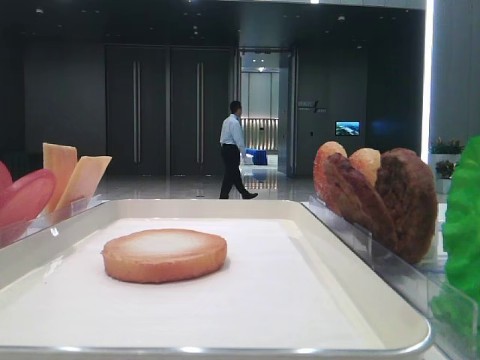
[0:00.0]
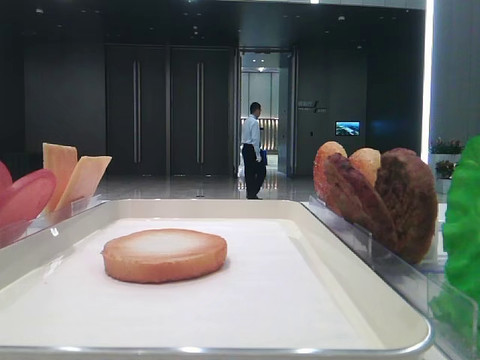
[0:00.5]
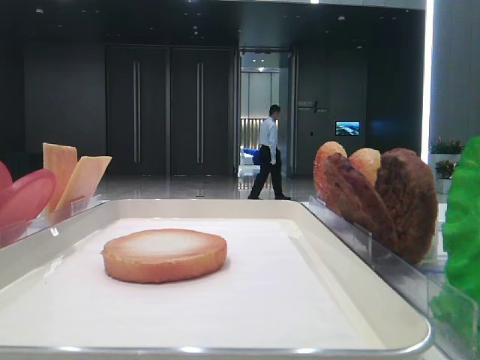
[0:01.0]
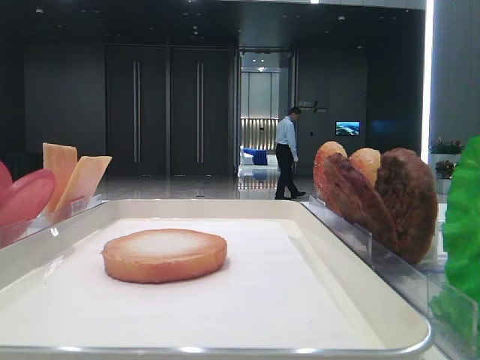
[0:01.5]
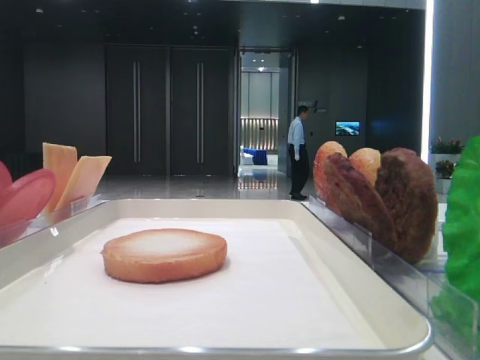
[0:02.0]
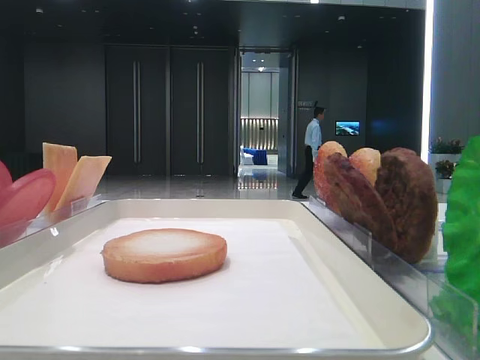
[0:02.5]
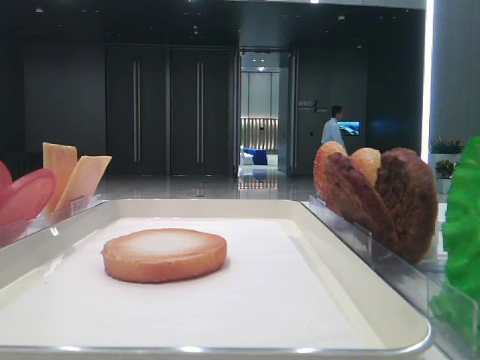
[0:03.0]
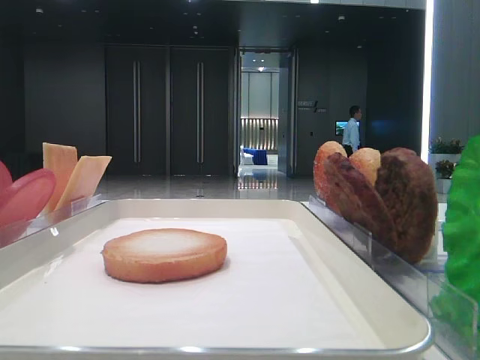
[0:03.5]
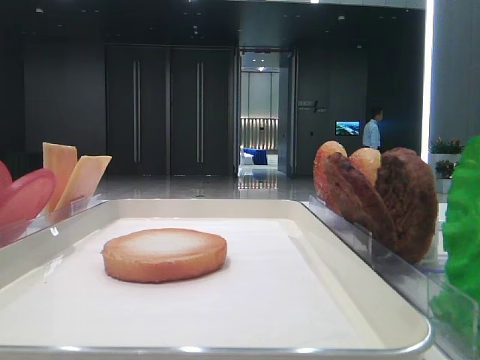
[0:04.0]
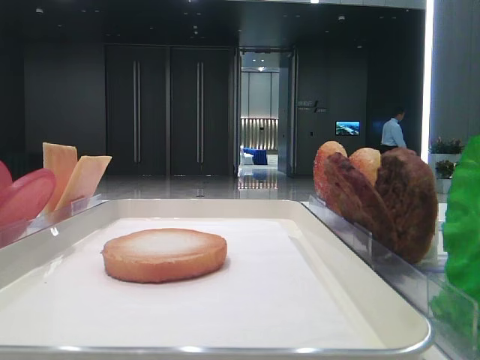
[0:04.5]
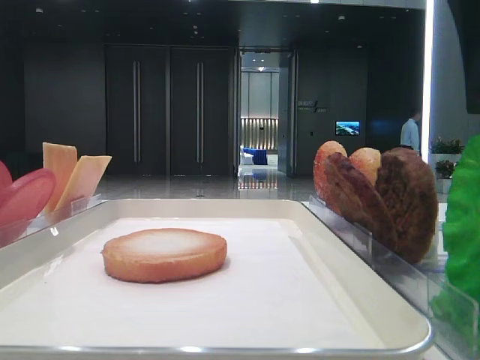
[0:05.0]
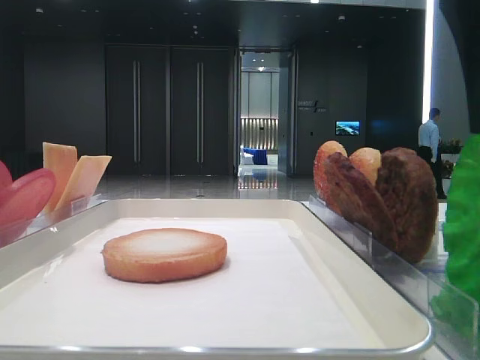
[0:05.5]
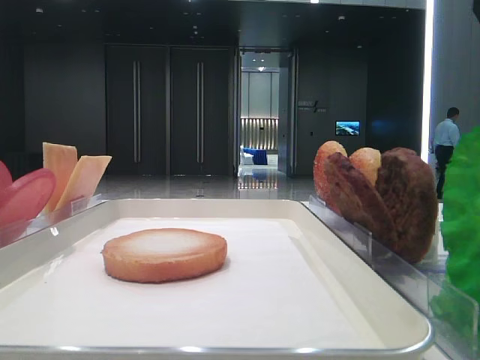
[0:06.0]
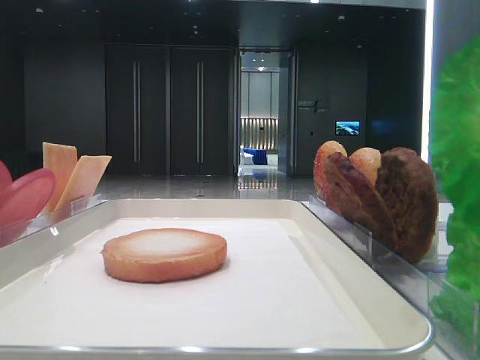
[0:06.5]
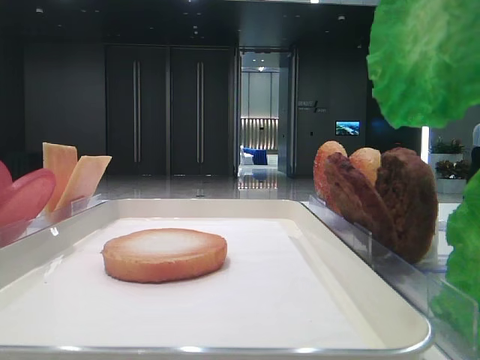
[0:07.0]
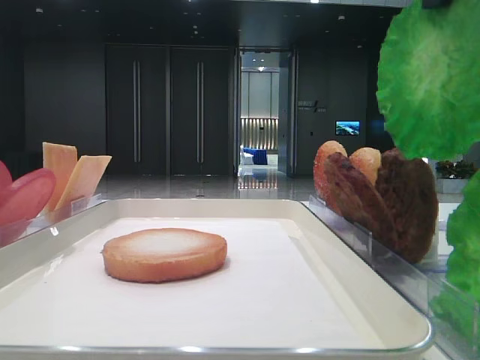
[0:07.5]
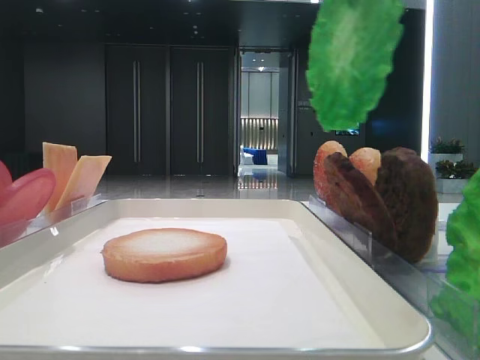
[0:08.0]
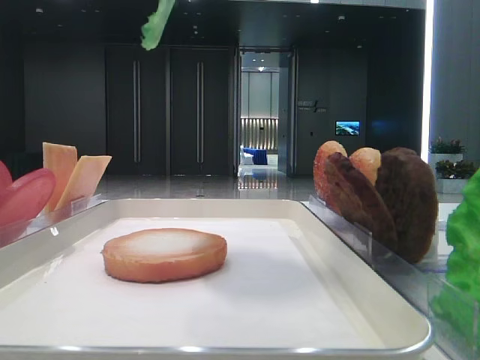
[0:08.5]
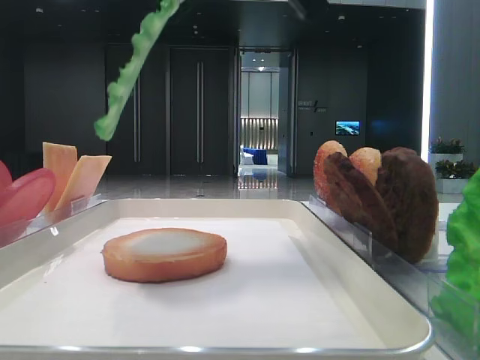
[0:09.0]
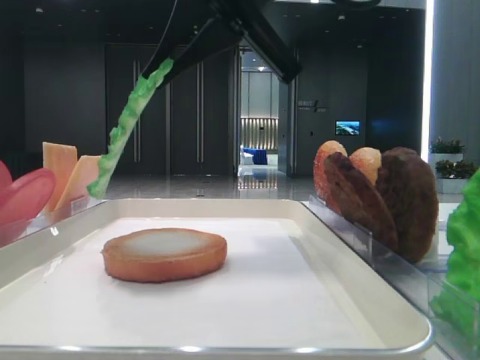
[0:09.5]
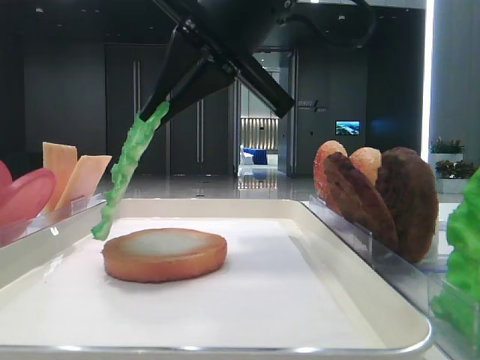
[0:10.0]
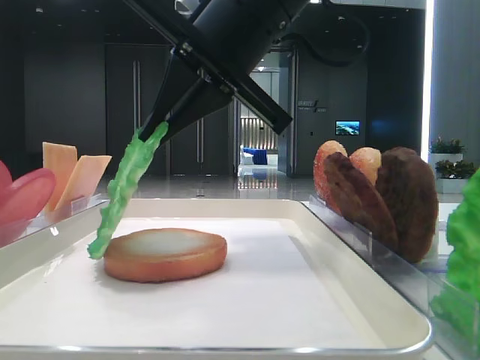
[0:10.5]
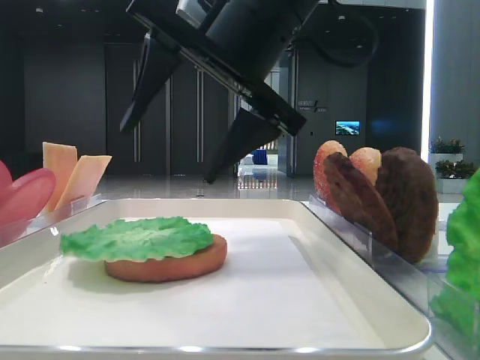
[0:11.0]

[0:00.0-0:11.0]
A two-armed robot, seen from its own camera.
Step, 0:00.0 to 0:06.0: Grab the lettuce leaf with the right hand.
Step, 0:06.5 to 0:10.5: Place the lettuce leaf on the bottom bread with the right hand.
0:02.0 to 0:03.5: The right gripper goes some 10 cm forward.
0:03.5 to 0:05.5: The right gripper travels to the left by some 10 cm.
0:05.5 to 0:07.5: The right gripper travels upward by roughly 10 cm, and closes its fingers.
0:07.5 to 0:09.0: The right gripper heads to the left and forward, covering some 10 cm.
0:09.0 to 0:11.0: The right gripper moves downward, approximately 10 cm, and opens its fingers.

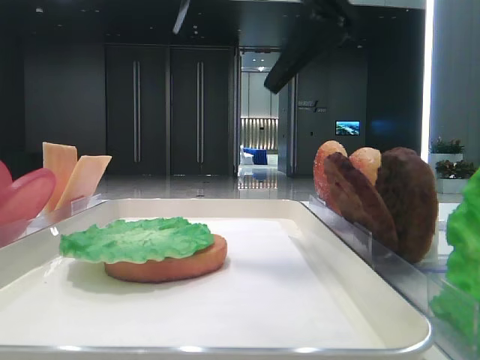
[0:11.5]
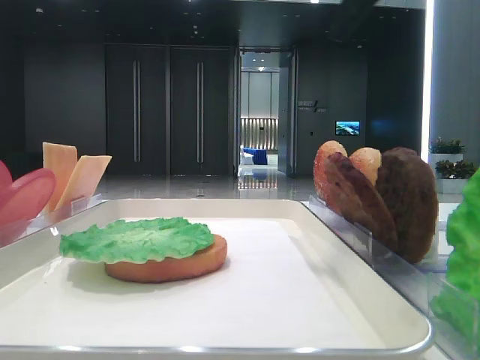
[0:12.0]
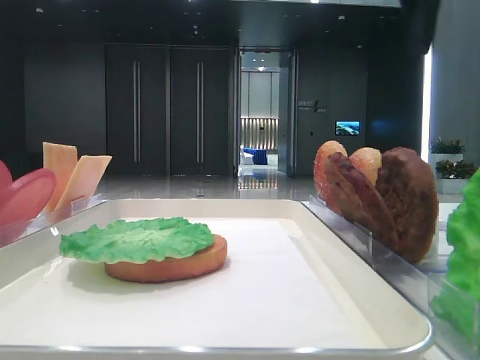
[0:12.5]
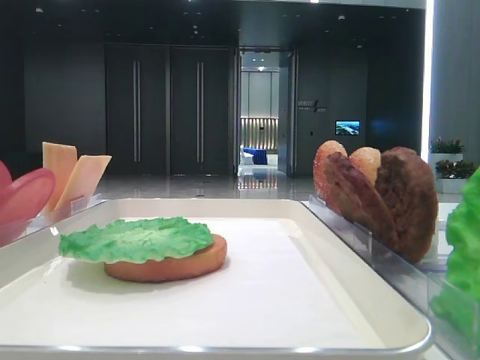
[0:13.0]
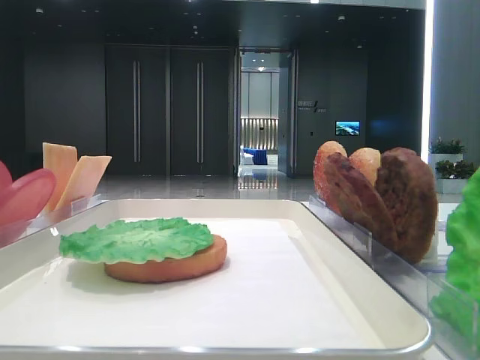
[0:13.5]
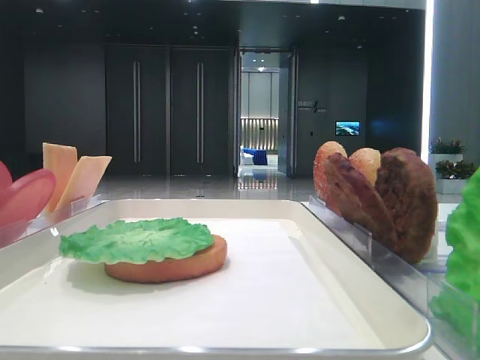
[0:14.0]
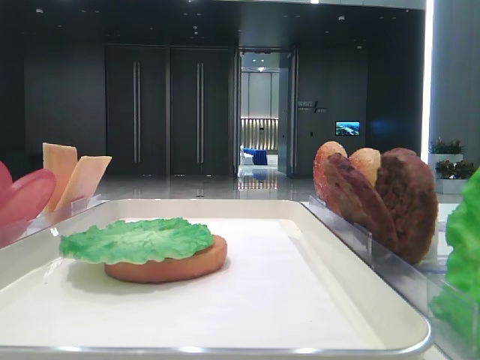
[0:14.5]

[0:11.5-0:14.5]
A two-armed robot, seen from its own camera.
0:11.5 to 0:13.0: The right gripper moves to the right, some 30 cm.
